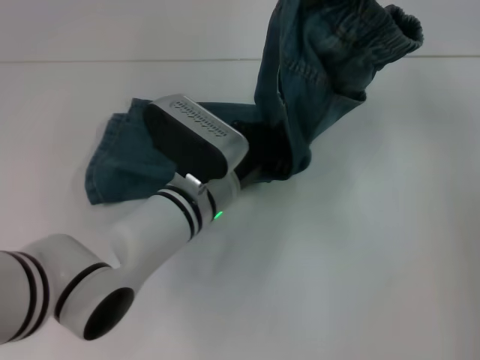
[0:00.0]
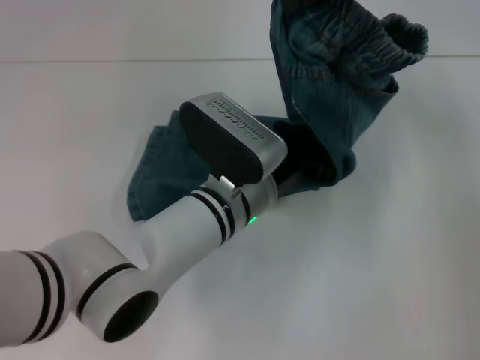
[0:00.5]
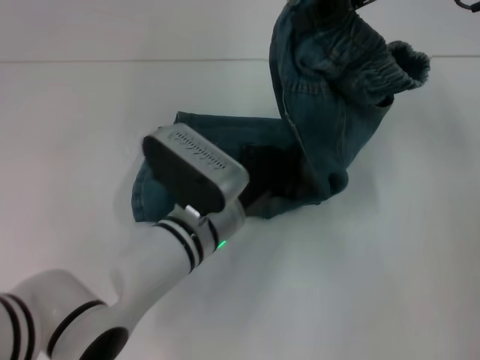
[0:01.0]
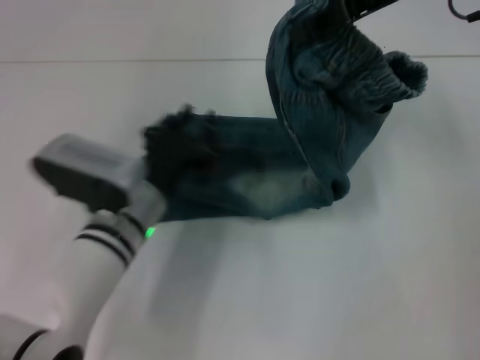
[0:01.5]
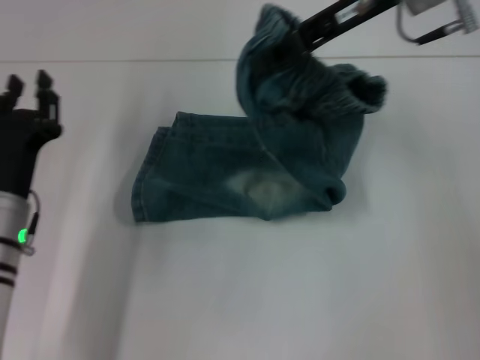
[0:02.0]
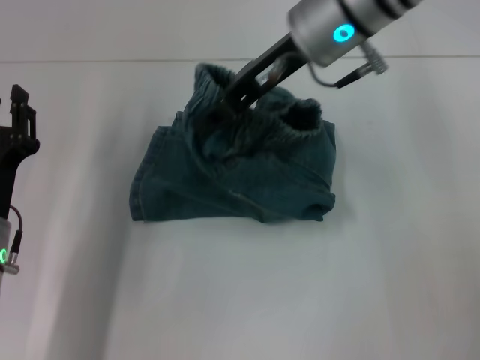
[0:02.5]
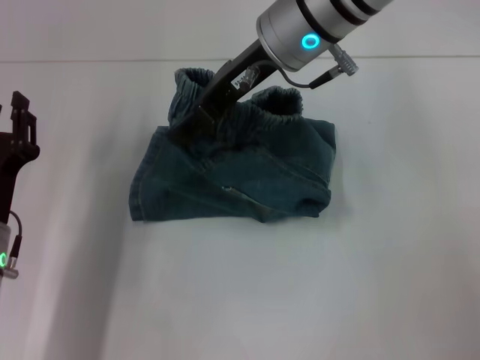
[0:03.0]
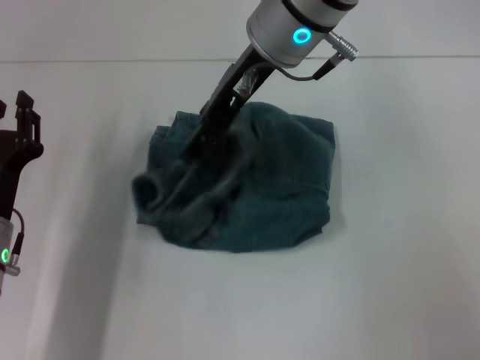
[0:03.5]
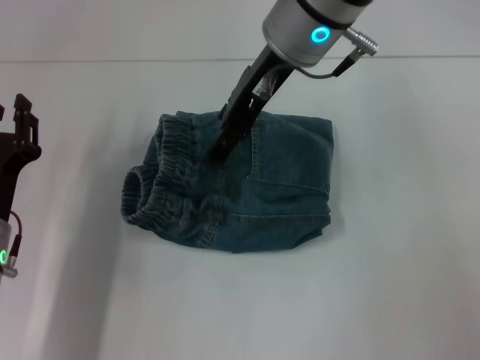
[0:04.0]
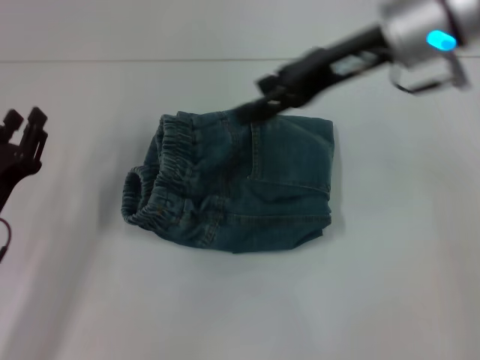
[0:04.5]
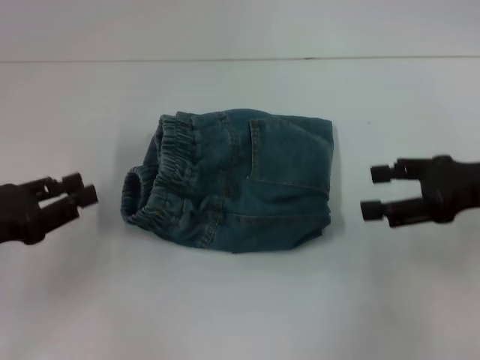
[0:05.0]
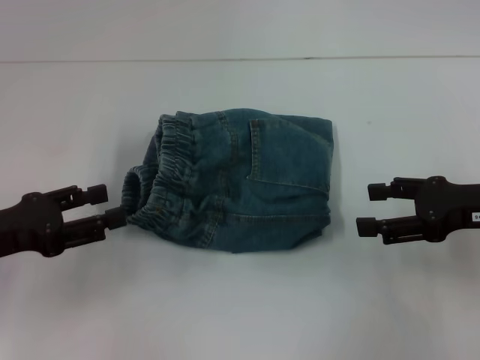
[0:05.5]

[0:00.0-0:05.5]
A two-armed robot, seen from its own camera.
Step, 0:01.5 to 0:04.5: Fold to the left with your right hand.
0:00.0 to 0:02.0: The right gripper moves some 5 cm; the left gripper heads to the left, covering roughly 15 cm, and opens its fingers.
0:02.0 to 0:03.5: The right gripper heads to the left, covering some 10 cm, and opens its fingers.
0:03.5 to 0:05.5: The left gripper moves upward and to the left, about 10 cm. The right gripper moves to the right, downward and backward, some 30 cm.

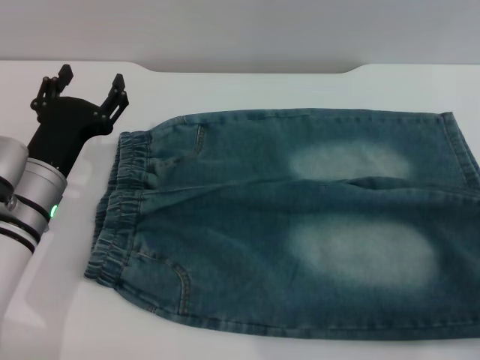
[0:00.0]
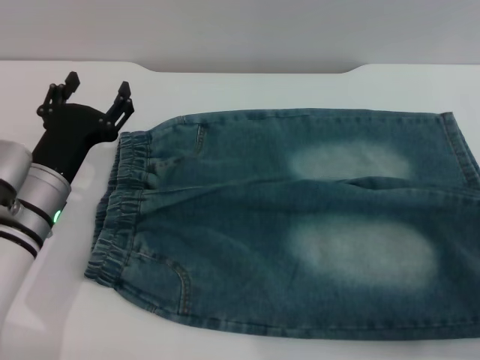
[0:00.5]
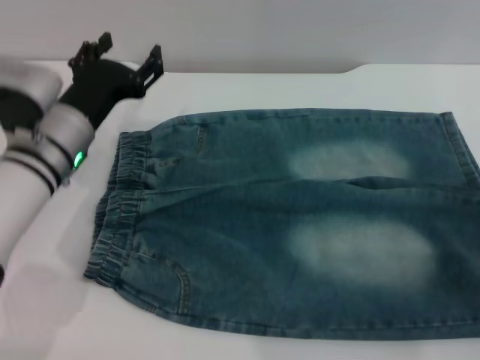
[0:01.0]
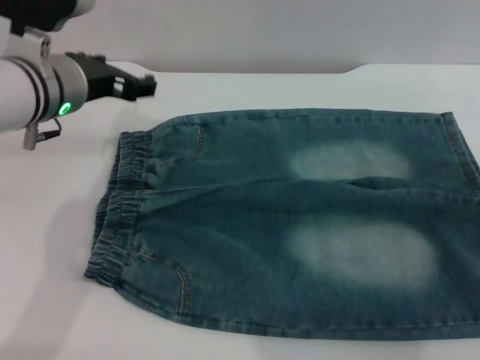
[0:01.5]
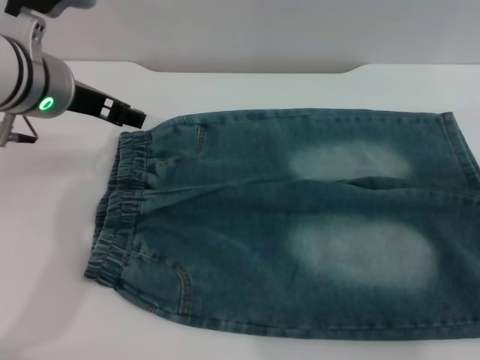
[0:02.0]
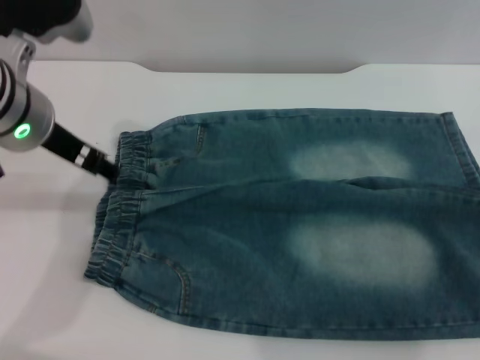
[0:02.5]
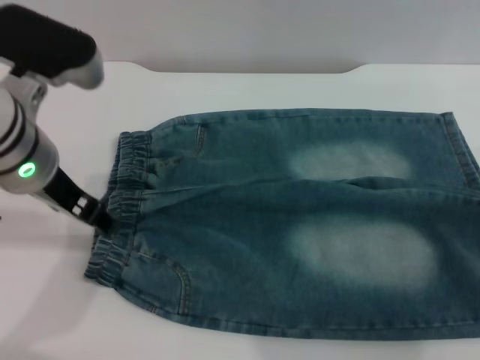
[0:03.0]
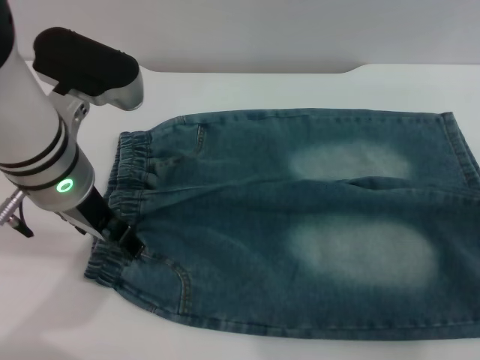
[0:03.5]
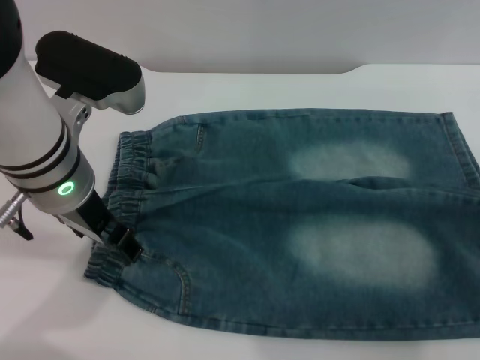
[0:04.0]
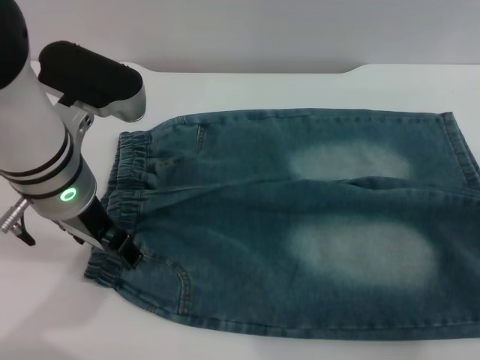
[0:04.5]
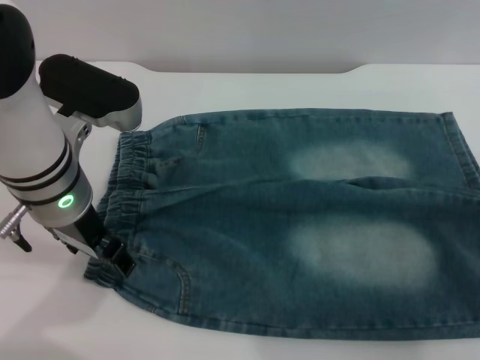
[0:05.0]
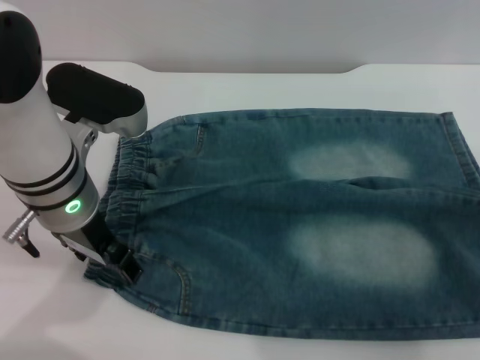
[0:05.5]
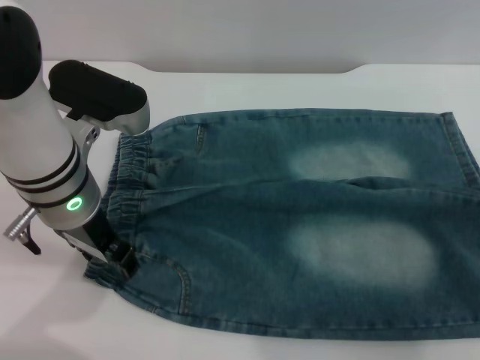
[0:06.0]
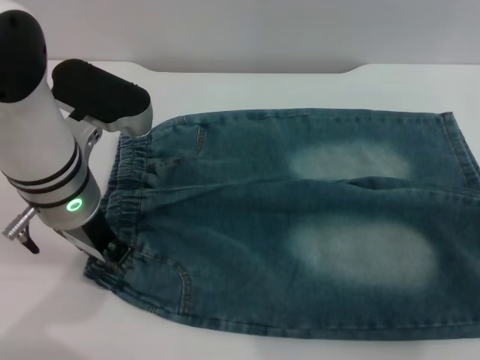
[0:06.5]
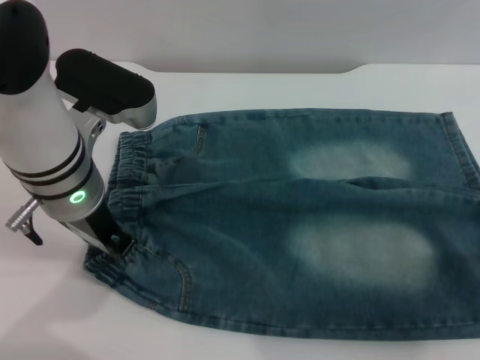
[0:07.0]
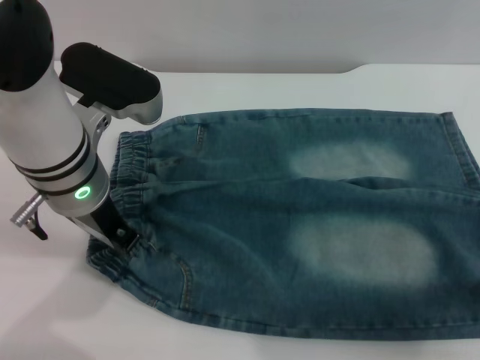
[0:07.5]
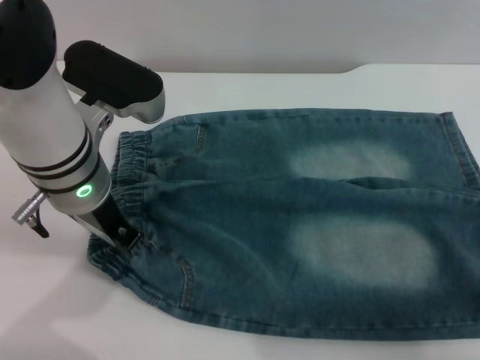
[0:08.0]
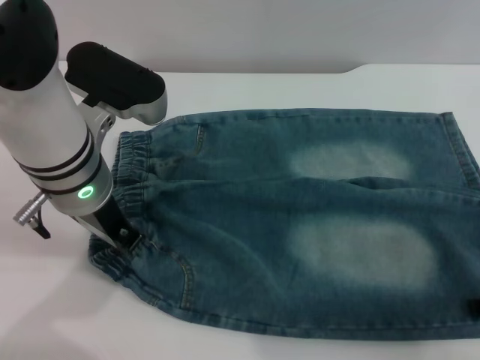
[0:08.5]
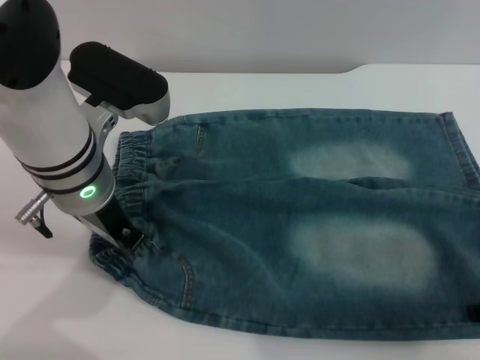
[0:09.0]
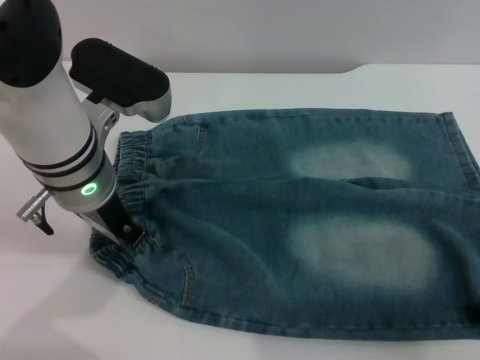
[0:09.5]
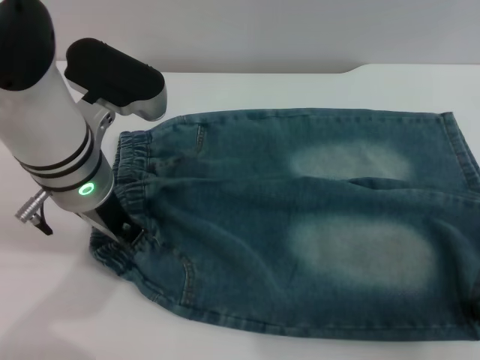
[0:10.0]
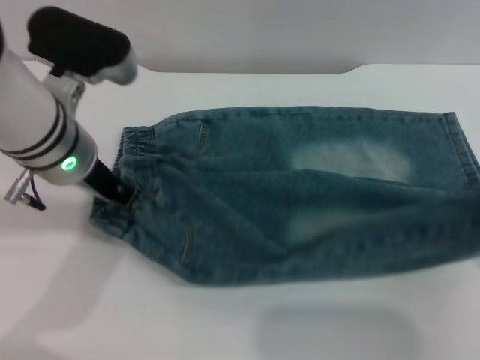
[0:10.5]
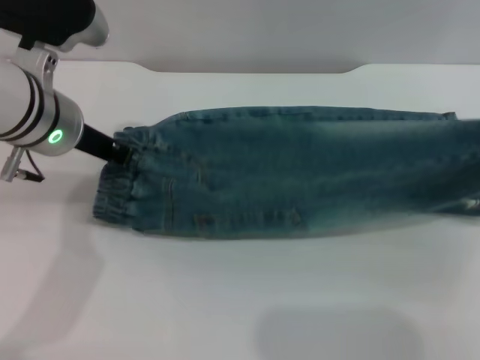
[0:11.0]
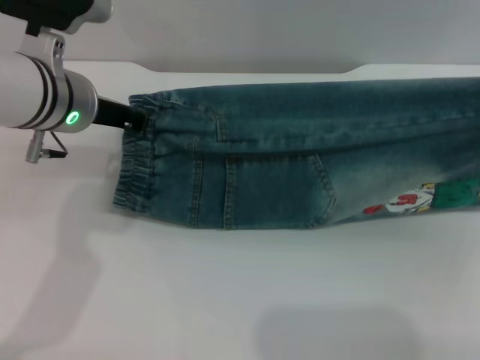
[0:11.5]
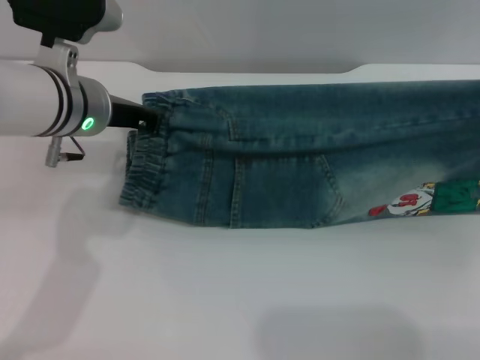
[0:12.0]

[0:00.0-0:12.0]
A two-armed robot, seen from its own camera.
0:00.0 to 0:02.0: The left gripper travels upward by about 15 cm.
0:02.0 to 0:04.0: The left gripper moves about 5 cm.
0:04.0 to 0:06.0: The grippers move only a little.
0:06.0 to 0:08.0: The left gripper closes up. Meanwhile the right gripper shifts roughly 5 cm to the left.
0:08.0 to 0:10.0: The right gripper closes up.
0:10.0 to 0:12.0: The right gripper goes roughly 5 cm forward, and moves roughly 10 cm upward and comes back. The left gripper changes place by approximately 5 cm.

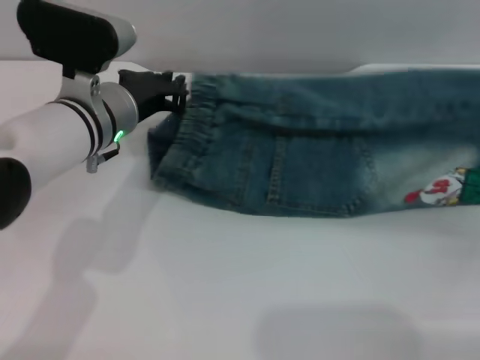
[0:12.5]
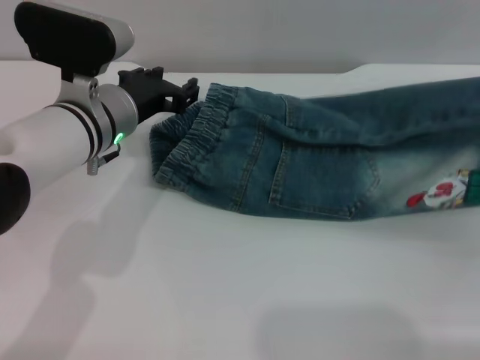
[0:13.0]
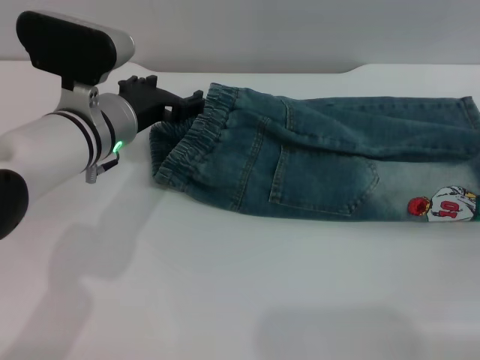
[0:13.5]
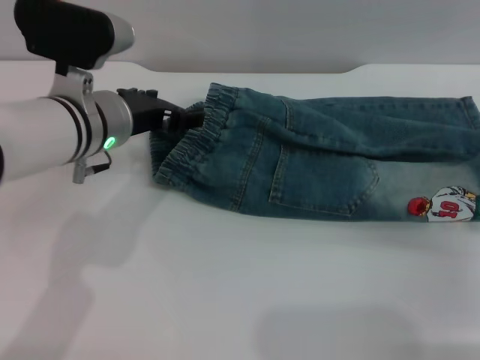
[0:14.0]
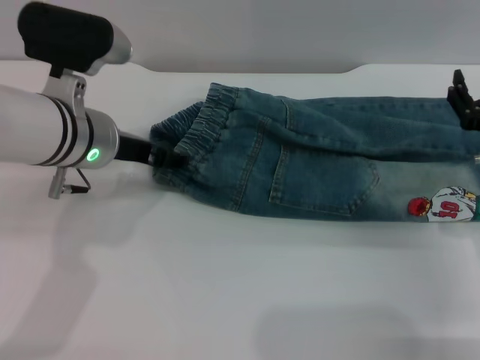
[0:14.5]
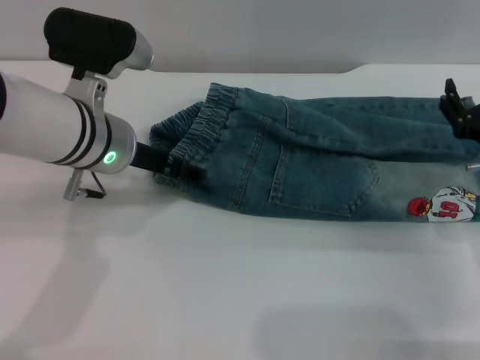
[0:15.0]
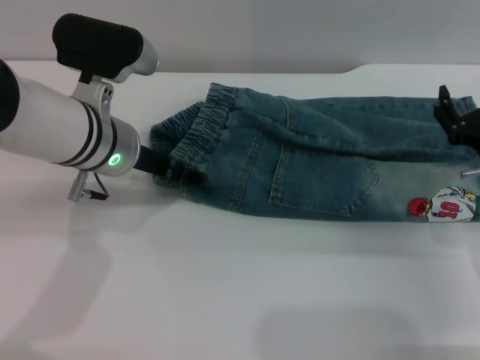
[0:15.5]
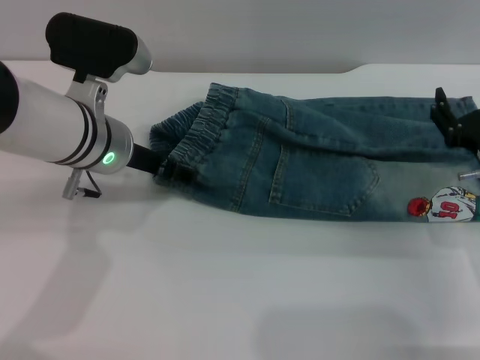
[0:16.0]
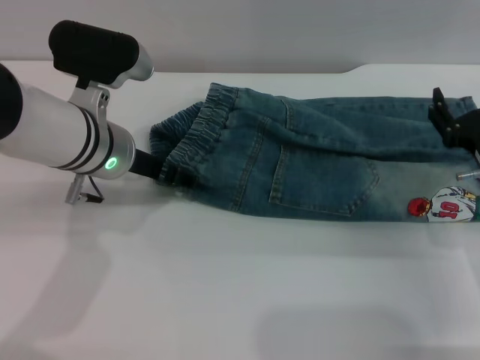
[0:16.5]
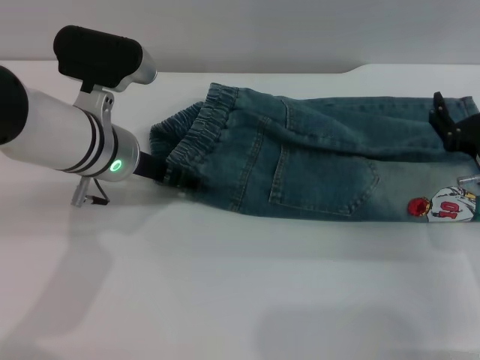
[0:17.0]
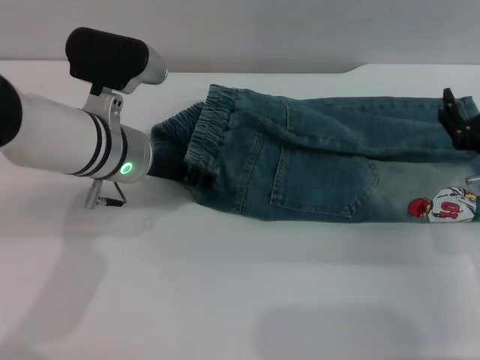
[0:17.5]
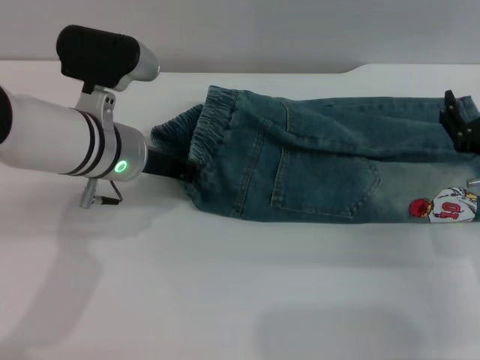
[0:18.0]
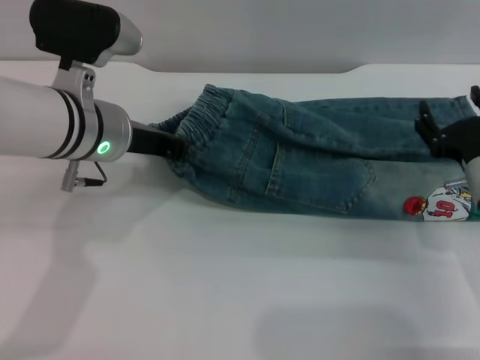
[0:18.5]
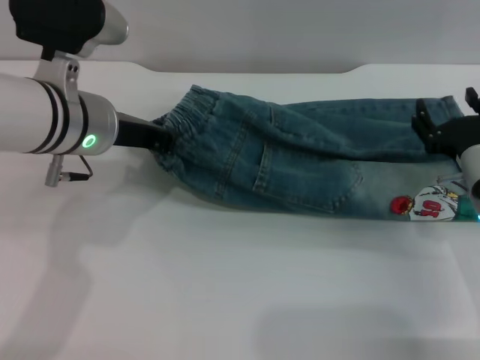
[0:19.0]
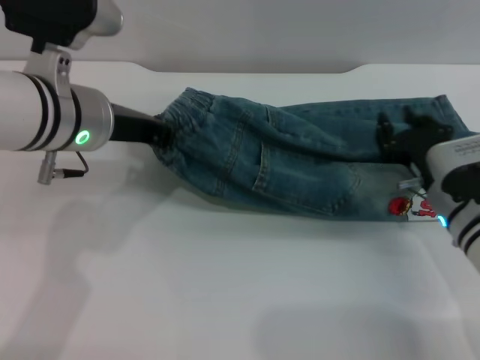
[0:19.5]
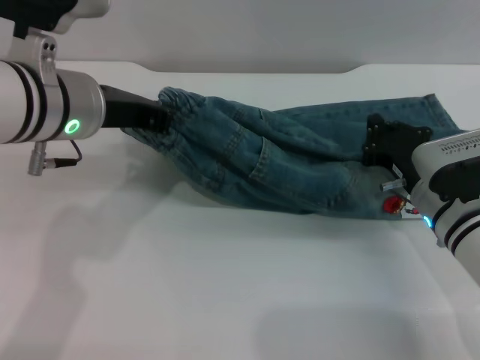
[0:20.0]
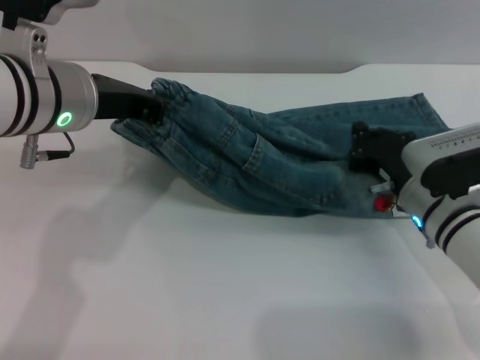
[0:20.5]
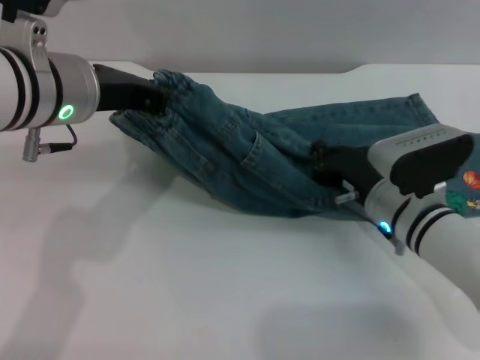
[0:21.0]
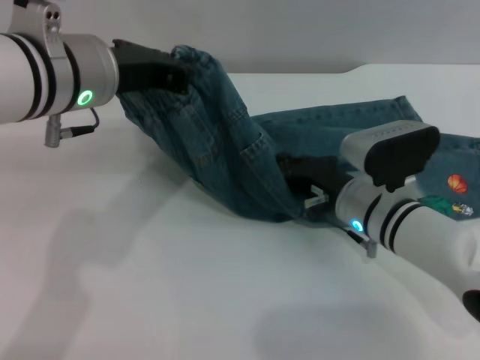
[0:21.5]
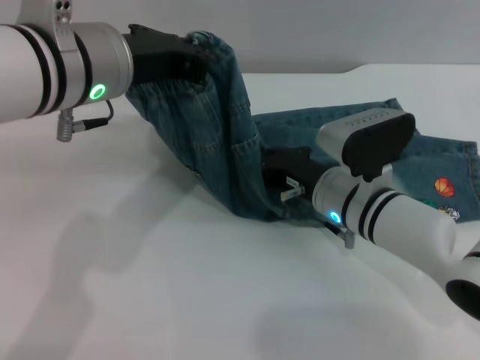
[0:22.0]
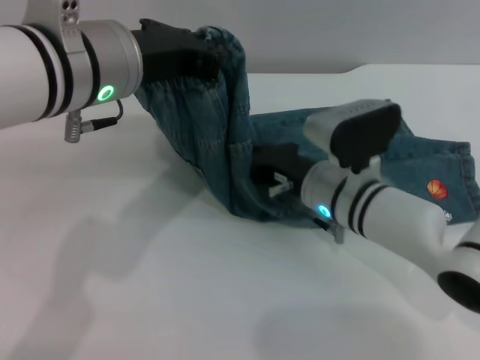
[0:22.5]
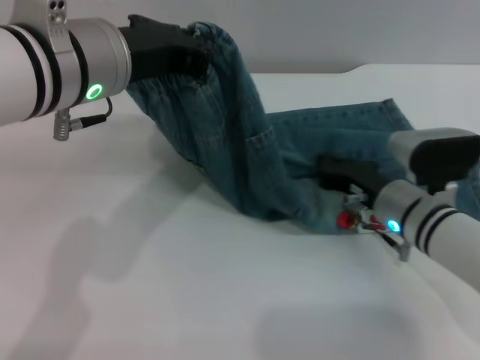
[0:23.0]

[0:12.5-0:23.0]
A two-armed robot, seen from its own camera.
0:12.5 to 0:14.5: The left gripper opens its fingers; the right gripper is displaced to the left by approximately 5 cm, and opens.
0:14.5 to 0:16.5: The grippers make only small movements.
0:16.5 to 0:19.0: The left gripper closes up.
0:19.0 to 0:21.0: The right gripper travels to the left by roughly 10 cm, and closes its fingers.
0:21.0 to 0:23.0: The right gripper goes to the left and returns, about 5 cm each way.
